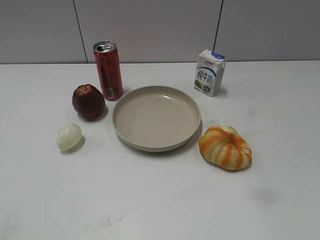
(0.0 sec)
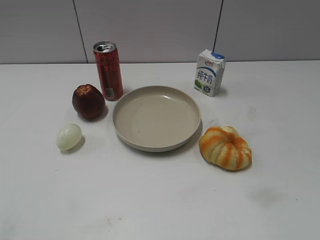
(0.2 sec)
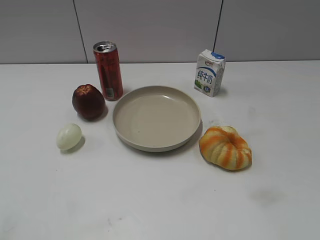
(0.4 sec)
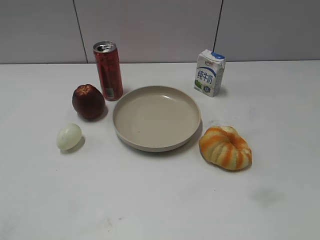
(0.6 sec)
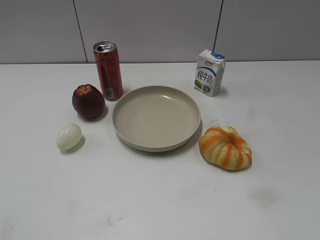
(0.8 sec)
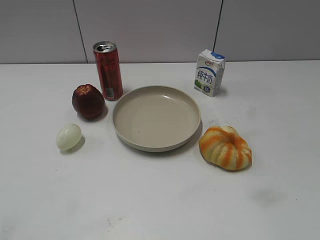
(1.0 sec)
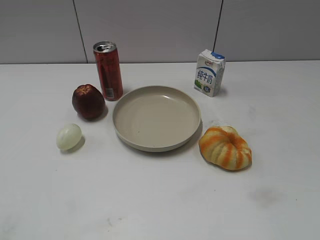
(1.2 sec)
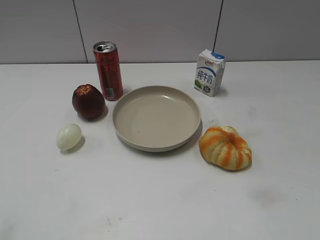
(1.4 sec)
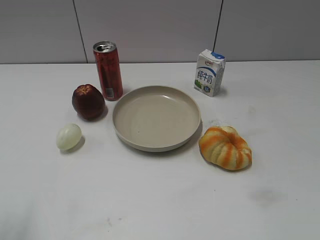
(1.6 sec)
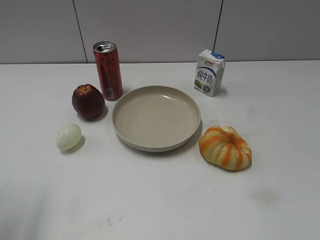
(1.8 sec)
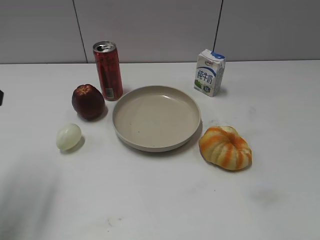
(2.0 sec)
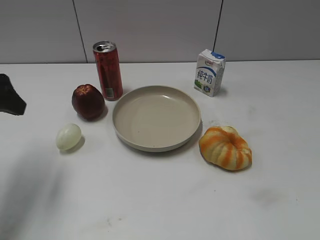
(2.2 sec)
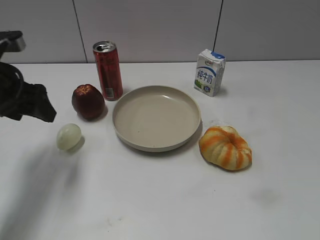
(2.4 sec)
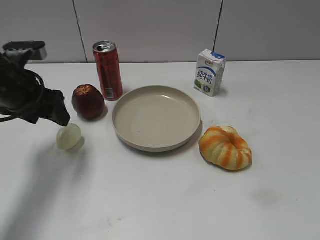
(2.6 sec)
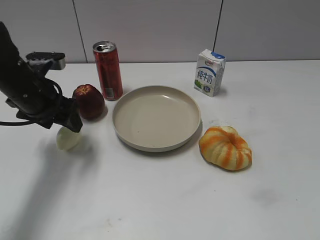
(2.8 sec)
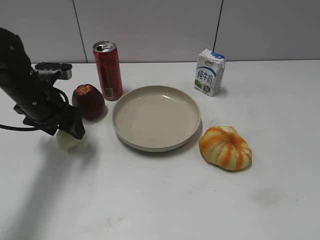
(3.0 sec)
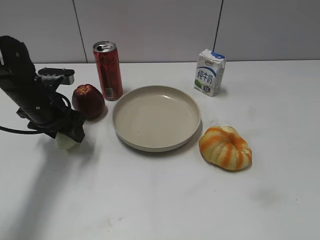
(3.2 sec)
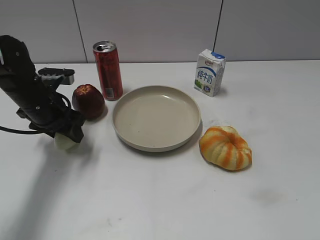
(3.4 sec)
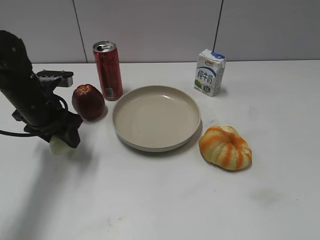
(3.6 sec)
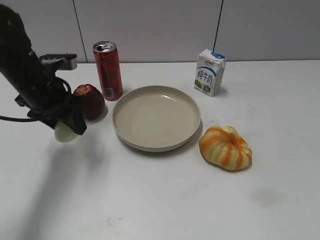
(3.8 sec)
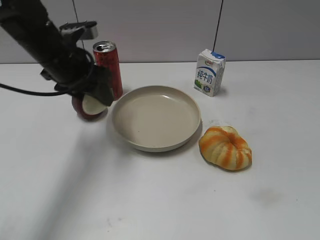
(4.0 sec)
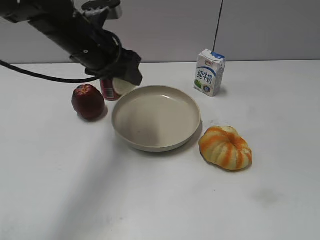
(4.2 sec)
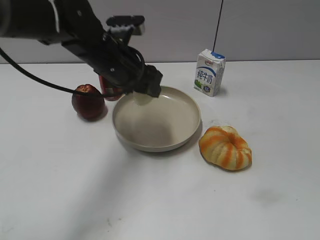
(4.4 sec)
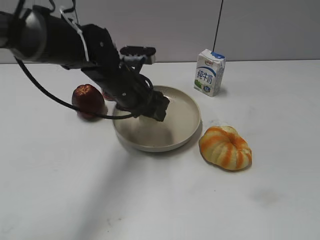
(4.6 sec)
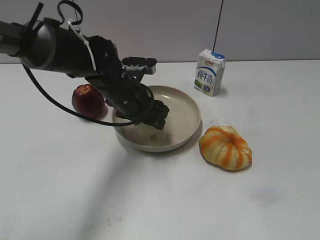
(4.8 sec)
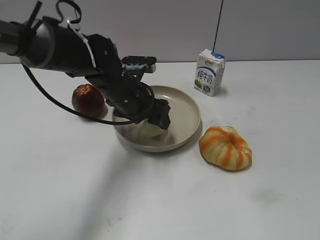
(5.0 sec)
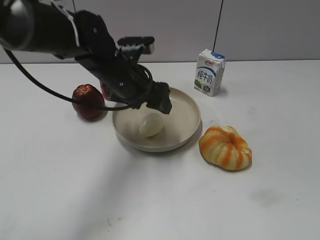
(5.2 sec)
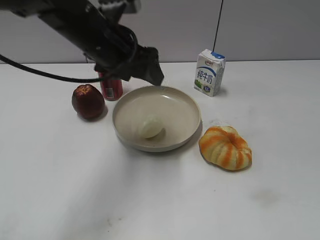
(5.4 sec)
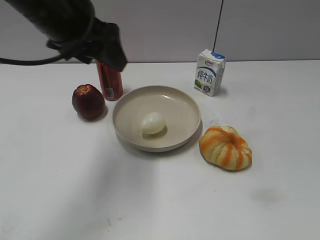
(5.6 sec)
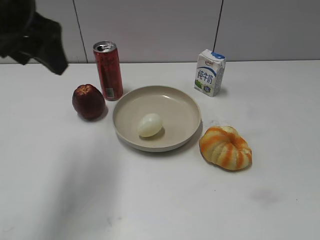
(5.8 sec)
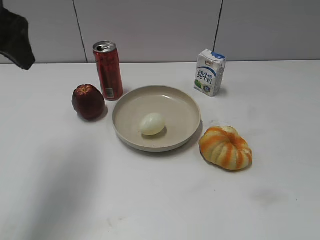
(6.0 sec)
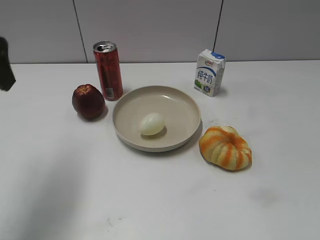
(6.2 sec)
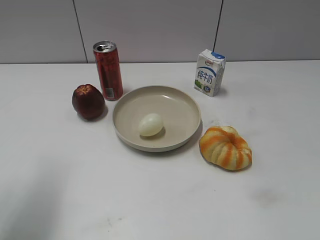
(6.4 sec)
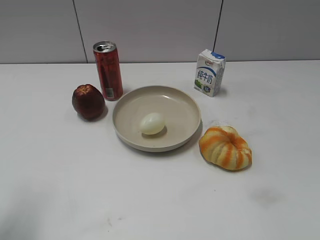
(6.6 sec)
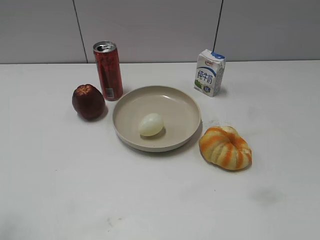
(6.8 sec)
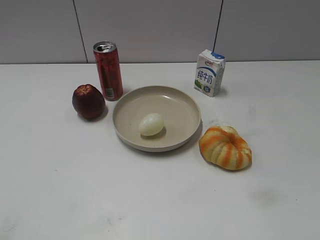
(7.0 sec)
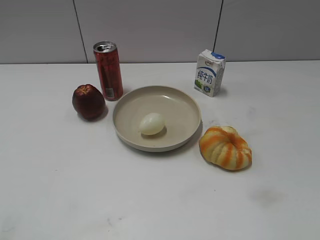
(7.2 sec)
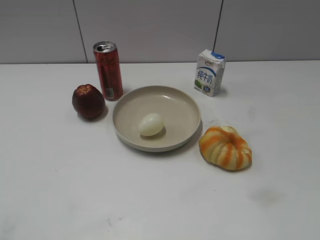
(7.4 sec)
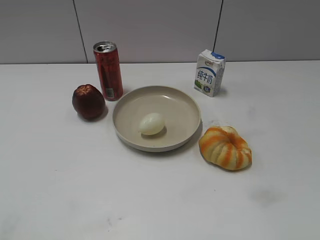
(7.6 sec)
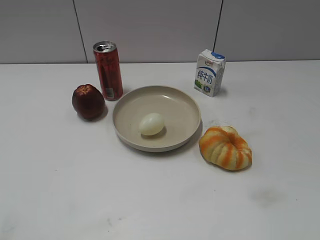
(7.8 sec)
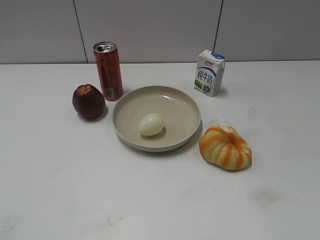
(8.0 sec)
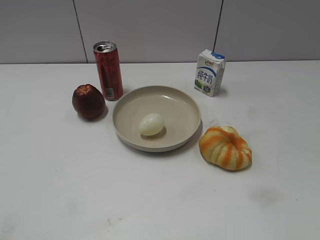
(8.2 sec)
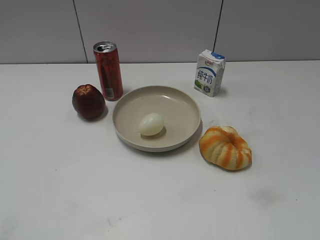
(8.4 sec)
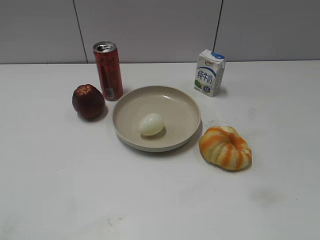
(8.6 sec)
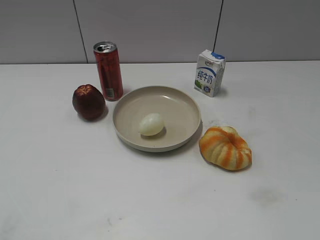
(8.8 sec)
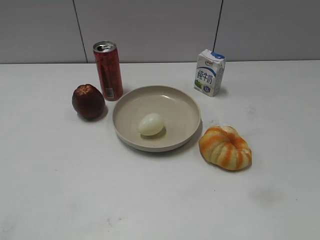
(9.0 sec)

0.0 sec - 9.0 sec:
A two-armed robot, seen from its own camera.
Step, 0.8 sec - 3.4 sec: Grasp the egg with left gripper.
Step, 3.6 sec - 5.0 sec: Place the egg on the plate with left gripper.
1.6 sec - 3.0 sec: The left gripper is displaced forward and downward by roughly 30 cm.
3.0 sec - 4.4 sec: The left gripper goes about 15 cm to the right and upward, and closes its fingers.
4.4 sec - 6.0 sec: The left gripper is displaced to the left, upward and backward by approximately 20 cm, and opens its fingers.
6.0 sec - 7.6 sec: The left gripper heads backward and to the left, covering about 25 cm.
